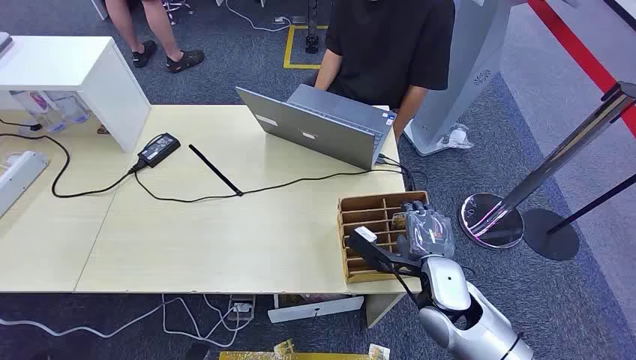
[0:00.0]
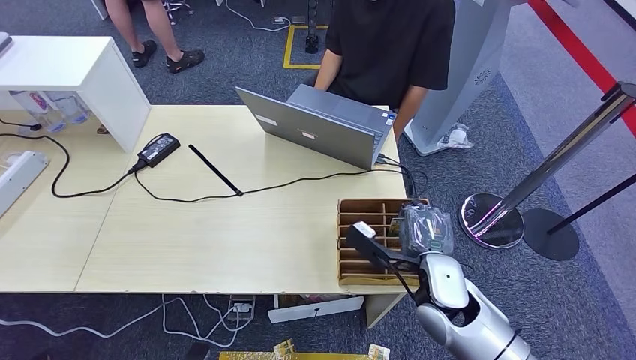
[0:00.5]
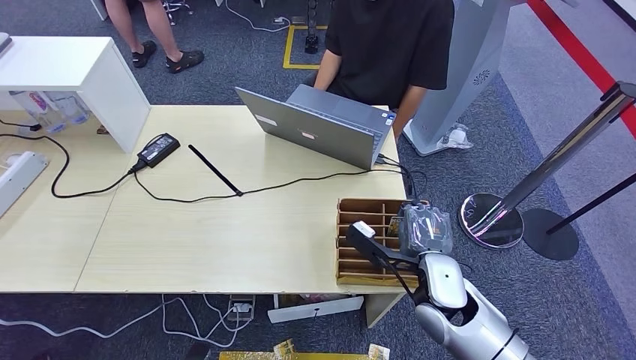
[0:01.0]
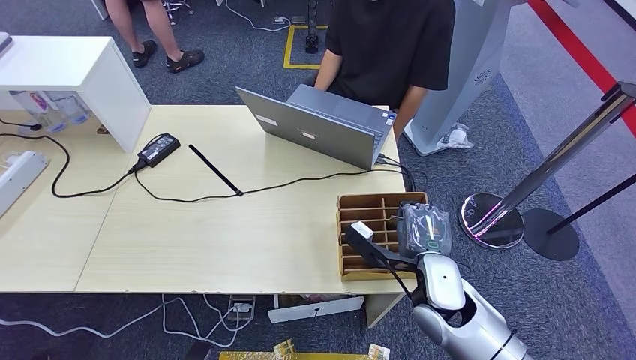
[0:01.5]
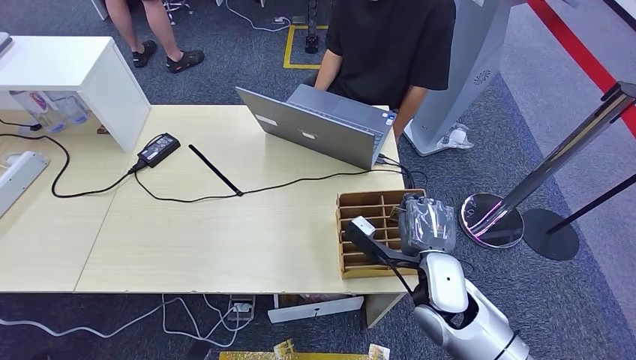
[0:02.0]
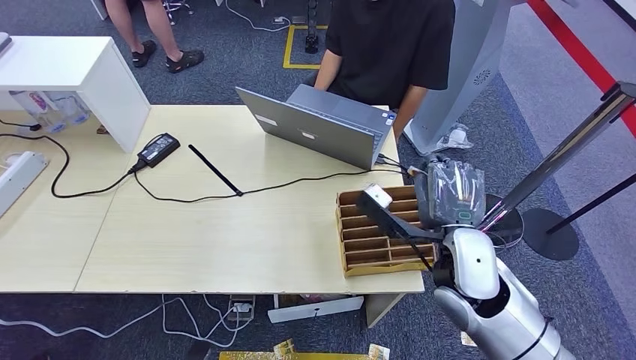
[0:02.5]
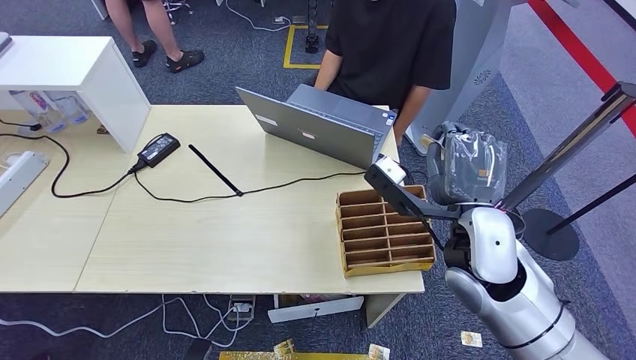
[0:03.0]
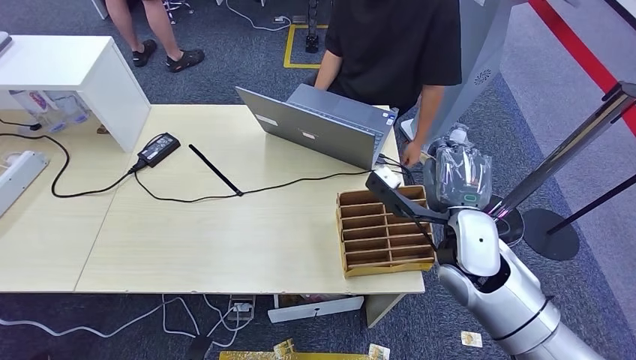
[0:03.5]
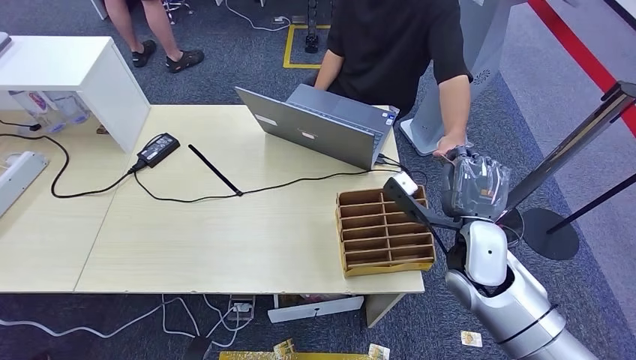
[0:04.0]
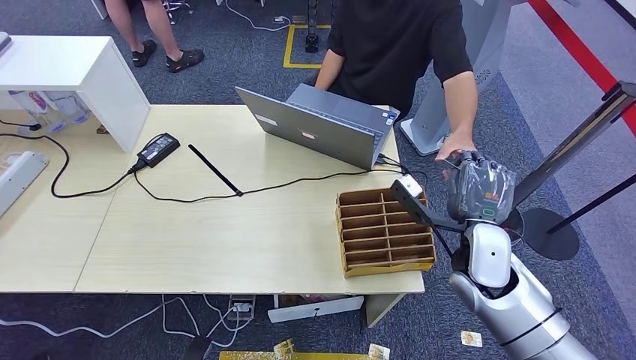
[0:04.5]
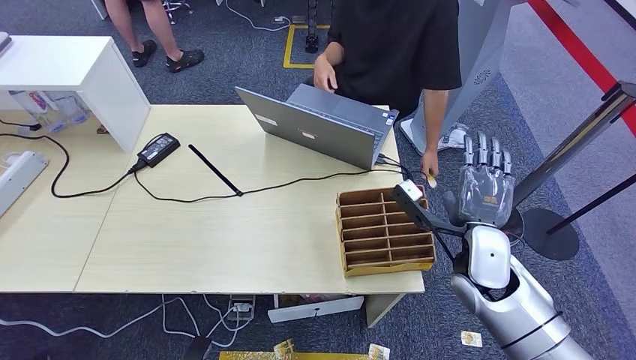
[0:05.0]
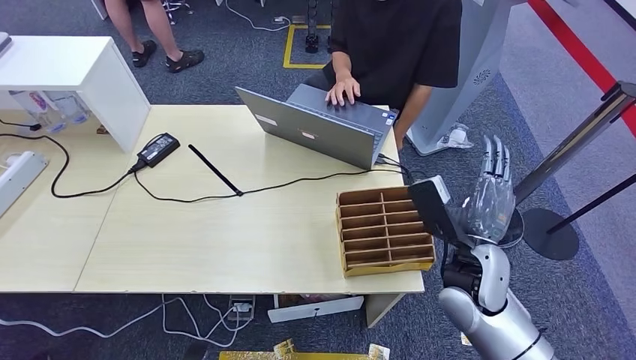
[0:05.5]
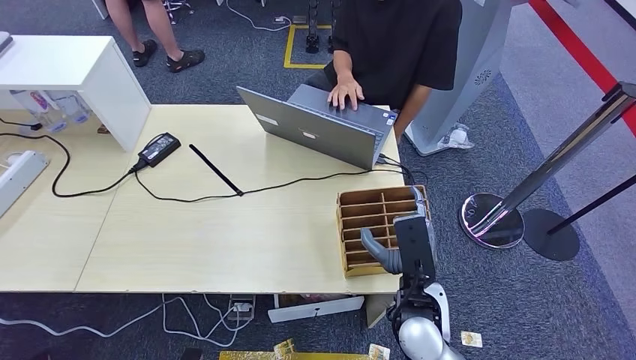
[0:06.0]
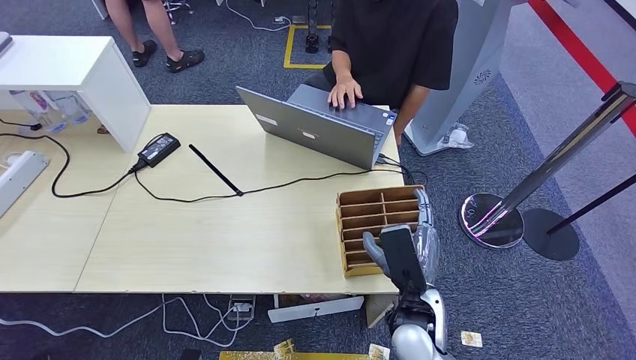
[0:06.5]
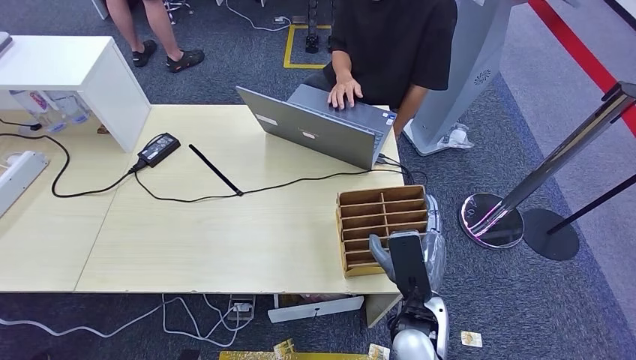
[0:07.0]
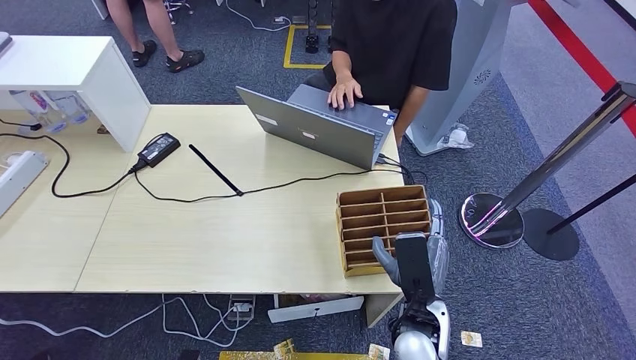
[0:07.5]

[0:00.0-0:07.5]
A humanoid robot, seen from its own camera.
Step, 0:00.0 to 0:02.0: Pick up the key card from the card box.
Step, 0:02.5 to 0:07.5: Hand the key card to the target.
0:02.0 to 0:04.0: The right hand is displaced to the right by approximately 5 cm.
0:05.5 to 0:07.5: The right hand shifts some 15 cm to the left, backward and downward.
